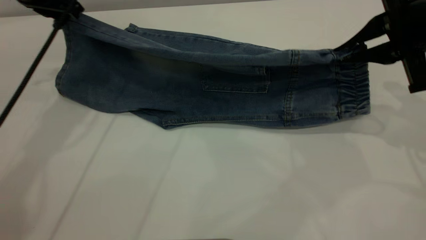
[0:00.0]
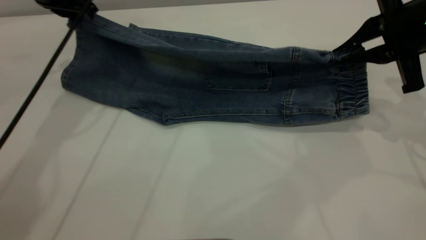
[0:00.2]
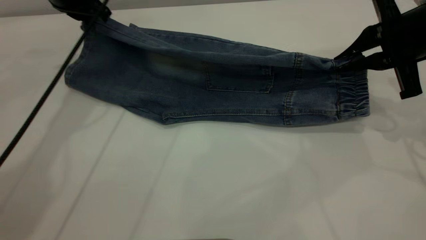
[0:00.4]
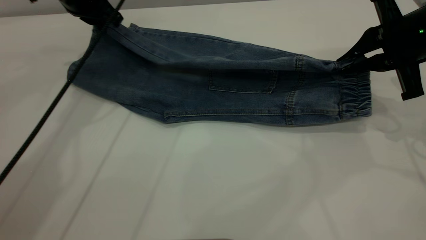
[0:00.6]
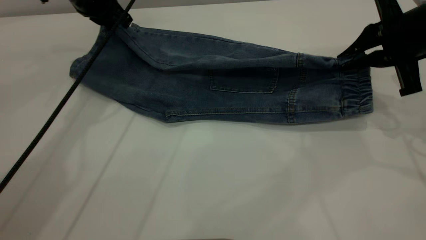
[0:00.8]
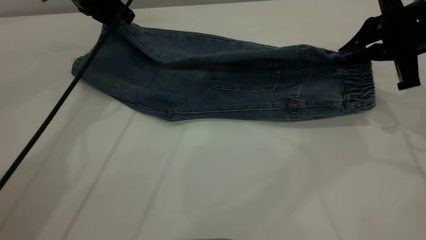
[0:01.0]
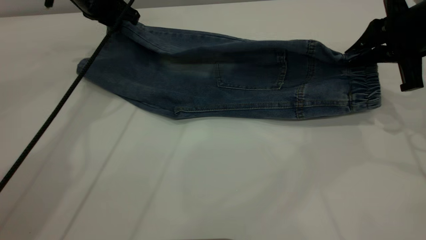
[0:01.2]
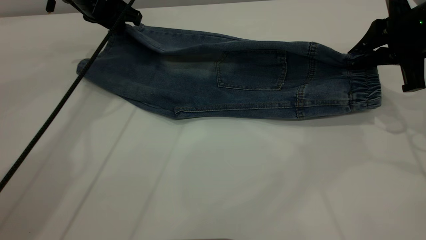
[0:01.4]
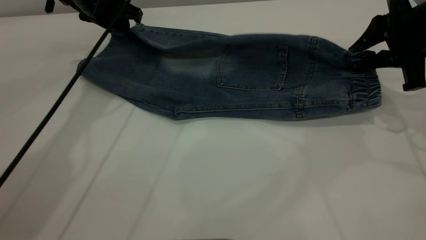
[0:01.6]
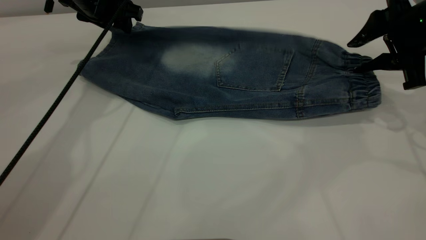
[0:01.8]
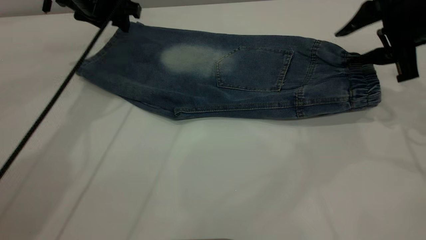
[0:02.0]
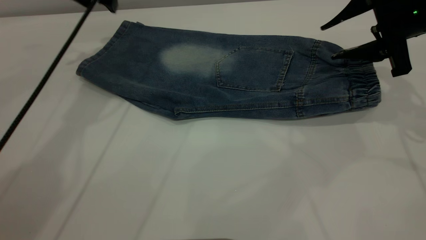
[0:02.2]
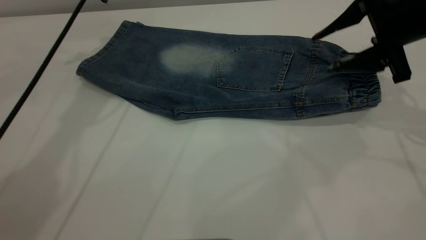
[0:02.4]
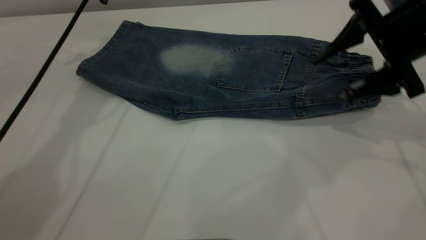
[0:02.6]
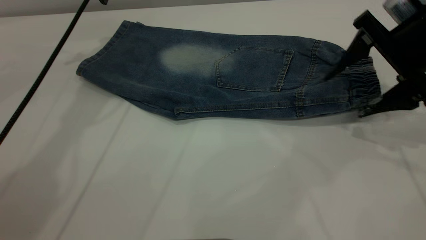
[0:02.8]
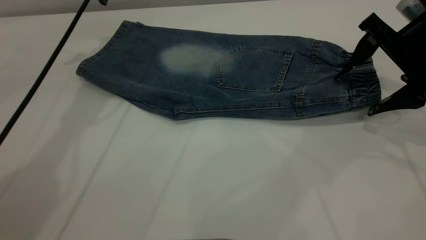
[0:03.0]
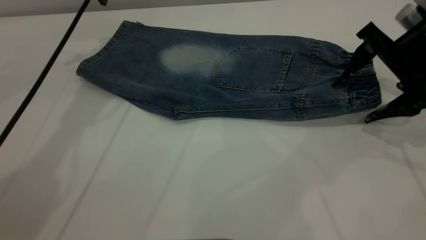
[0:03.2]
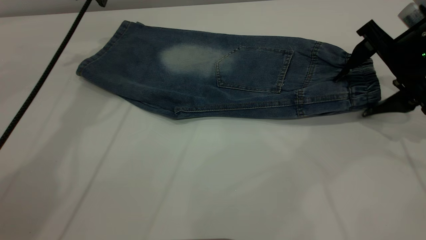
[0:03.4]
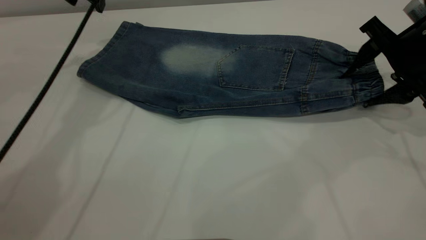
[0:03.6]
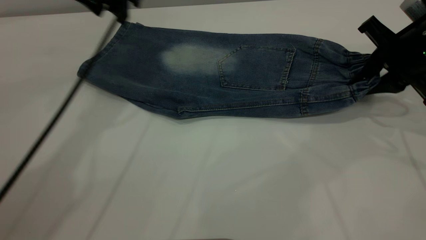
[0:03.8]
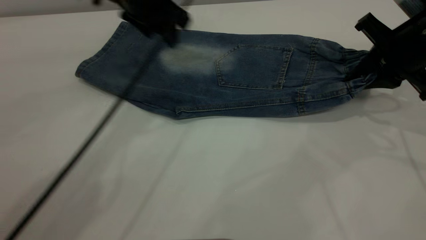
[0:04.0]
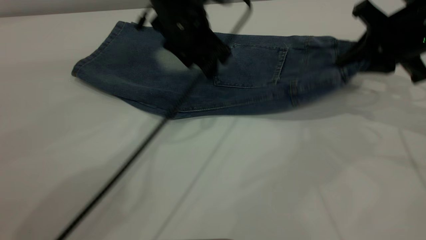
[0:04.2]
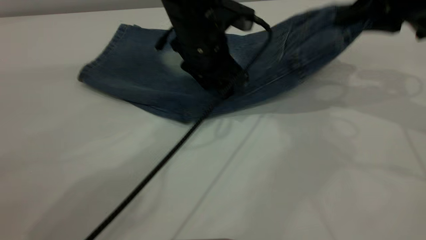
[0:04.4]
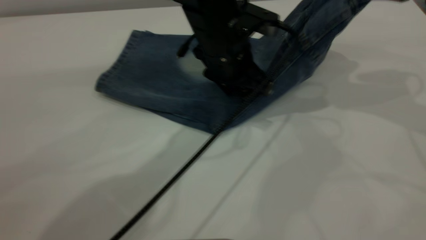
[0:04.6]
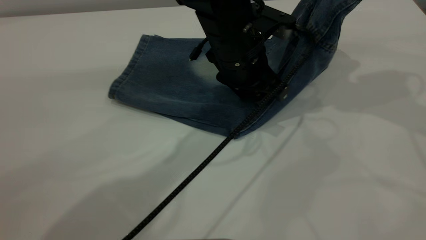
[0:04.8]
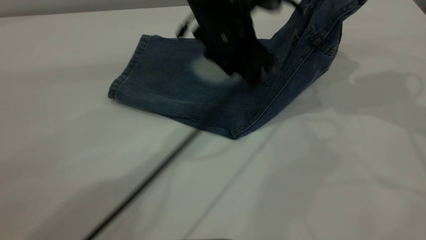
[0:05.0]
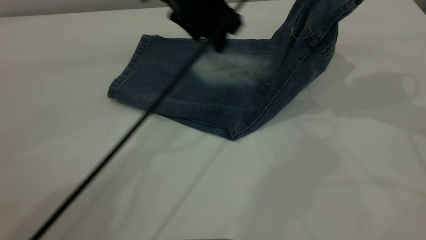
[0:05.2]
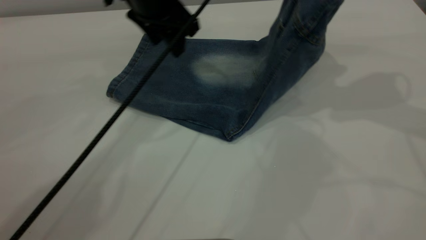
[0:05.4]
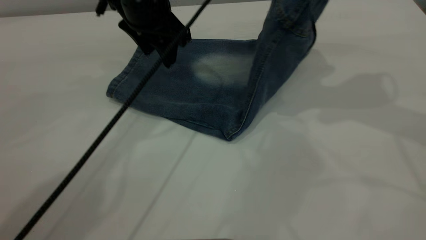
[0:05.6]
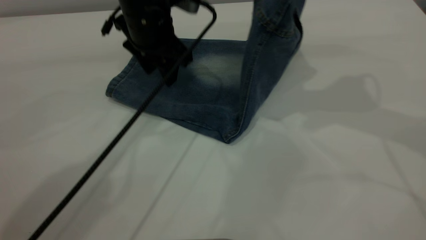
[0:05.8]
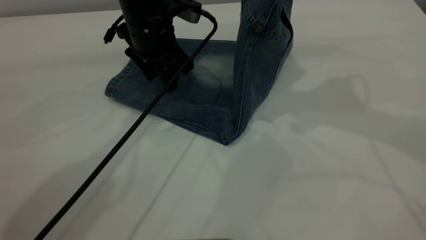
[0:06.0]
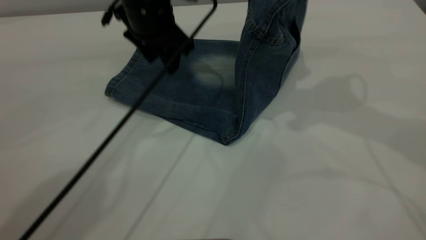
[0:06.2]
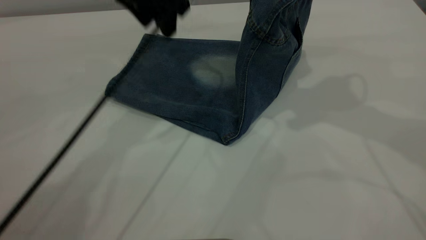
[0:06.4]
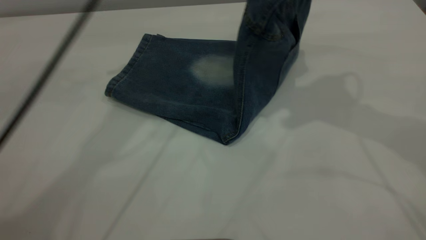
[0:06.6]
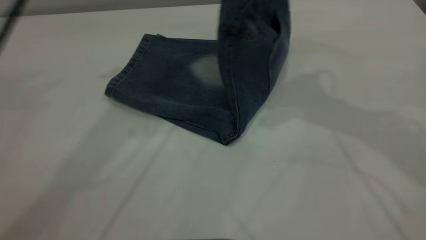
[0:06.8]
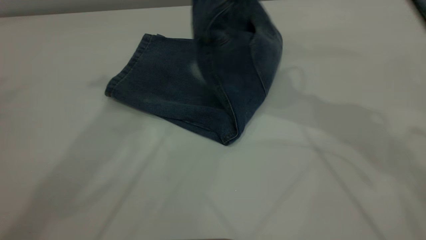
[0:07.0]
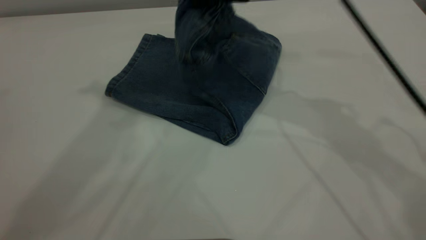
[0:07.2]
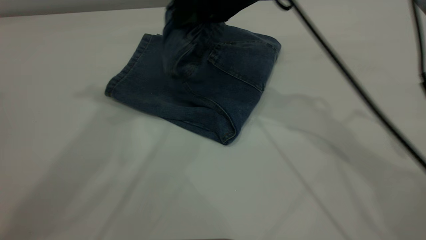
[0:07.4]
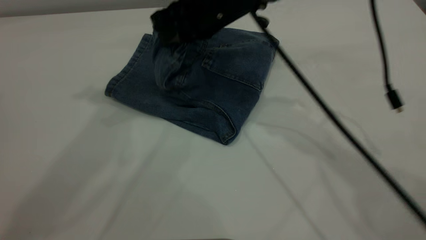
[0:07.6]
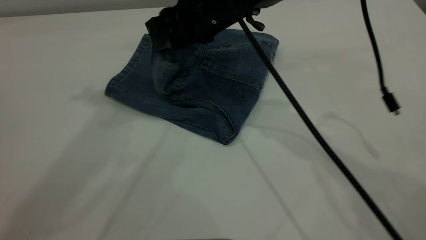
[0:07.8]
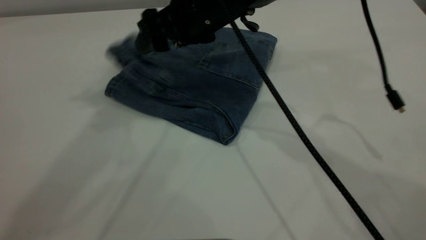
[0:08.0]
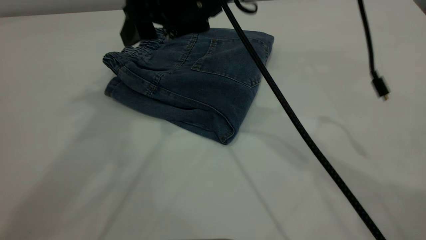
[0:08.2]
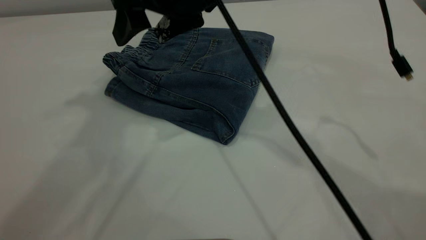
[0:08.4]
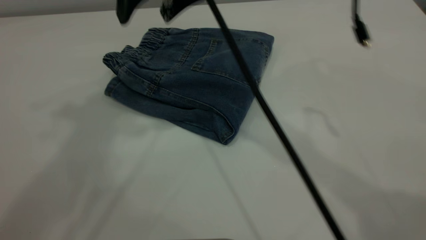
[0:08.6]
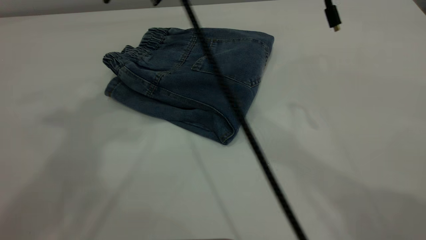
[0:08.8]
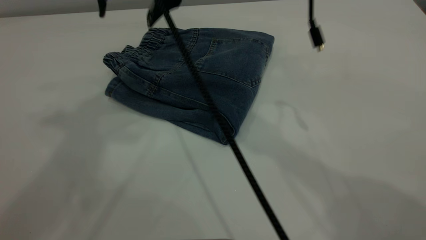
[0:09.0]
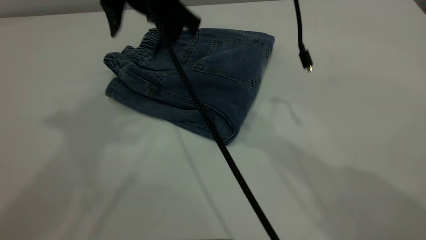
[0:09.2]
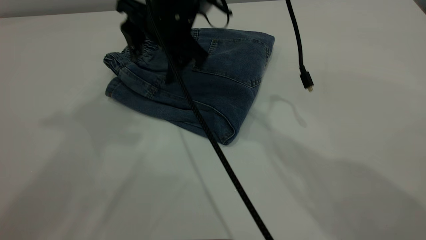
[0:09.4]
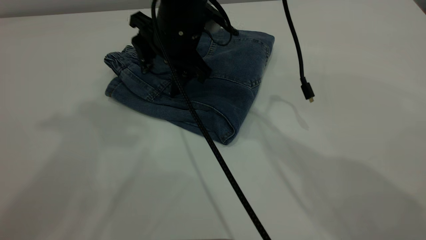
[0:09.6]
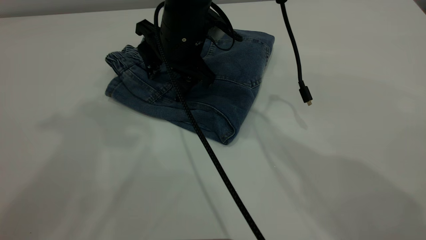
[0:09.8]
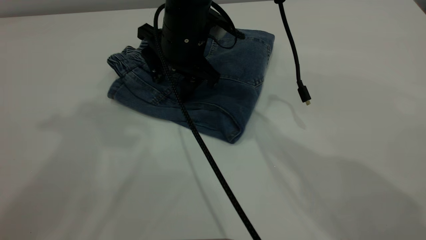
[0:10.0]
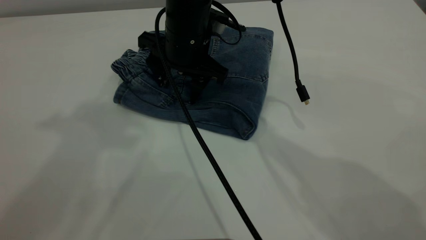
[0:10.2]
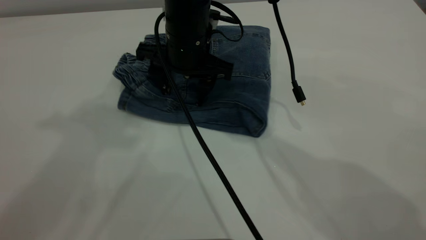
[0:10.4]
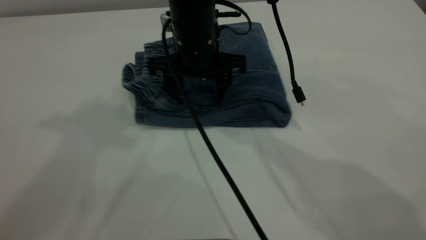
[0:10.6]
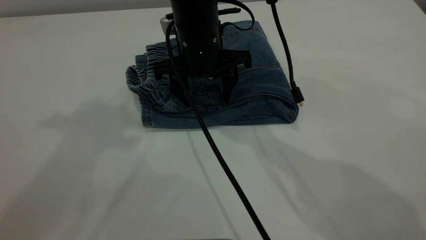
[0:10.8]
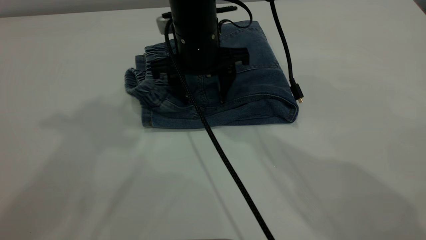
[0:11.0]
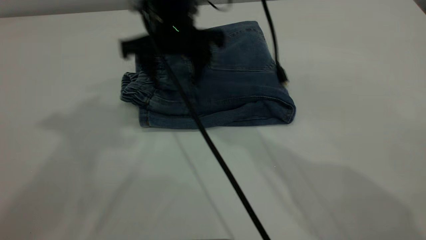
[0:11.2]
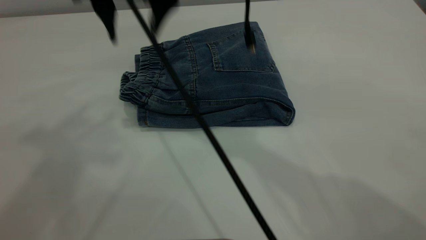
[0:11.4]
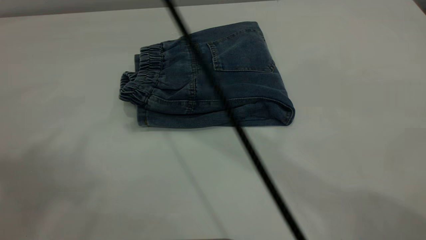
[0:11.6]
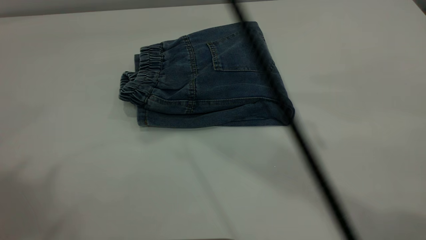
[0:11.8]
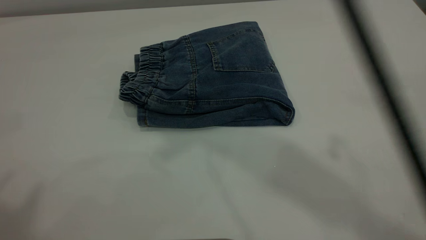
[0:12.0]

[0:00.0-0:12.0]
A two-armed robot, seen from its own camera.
Step, 0:00.0 to 0:02.4: Fold the bottom of the pants upward.
Step, 0:02.6 to 0:08.4: Fold your pants from right to left.
0:00.0 to 0:01.6: The right gripper opens up, while the left gripper shifts roughly 10 cm forward and downward, and opens.
0:01.6 to 0:03.0: The left gripper is displaced upward by approximately 5 cm; the right gripper opens up.
0:03.0 to 0:04.4: The right gripper heads upward, covering about 5 cm, and closes, while the left gripper travels to the right, downward and backward by roughly 25 cm.
0:04.4 to 0:06.0: The right gripper goes approximately 10 cm to the left and upward. The left gripper moves to the left, some 10 cm.
0:06.0 to 0:07.6: The right gripper is displaced to the left and downward by roughly 20 cm, while the left gripper goes some 30 cm upward.
0:07.6 to 0:09.0: The right gripper is displaced upward and to the left by roughly 10 cm, and opens up; the left gripper travels upward and backward by about 10 cm.
0:09.0 to 0:10.4: The right gripper is displaced downward by approximately 10 cm.
0:10.4 to 0:12.0: The left gripper moves backward, to the left and upward, about 20 cm. Meanwhile the right gripper shifts about 40 cm upward.

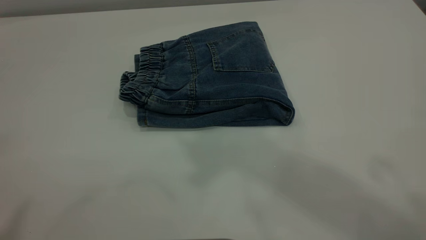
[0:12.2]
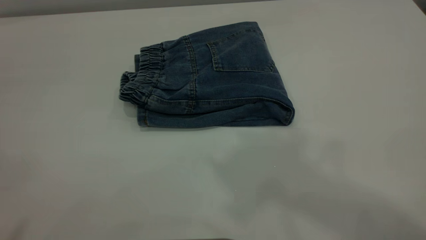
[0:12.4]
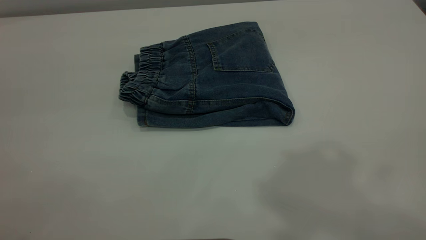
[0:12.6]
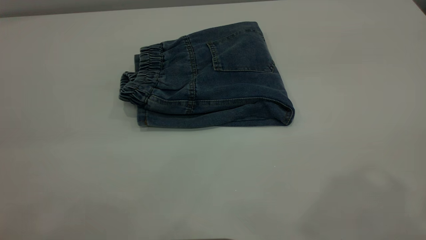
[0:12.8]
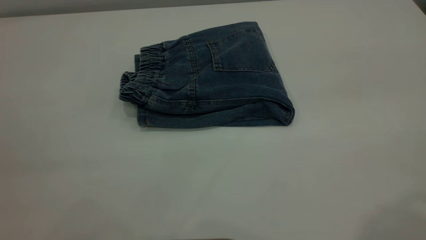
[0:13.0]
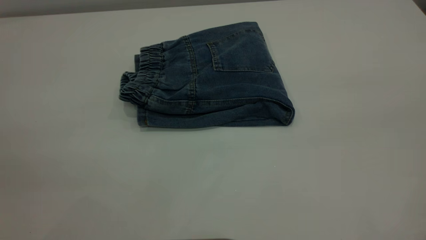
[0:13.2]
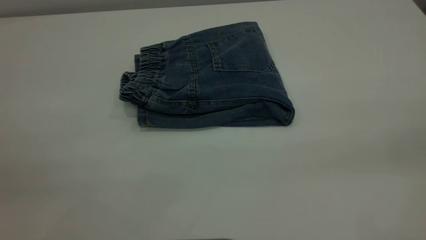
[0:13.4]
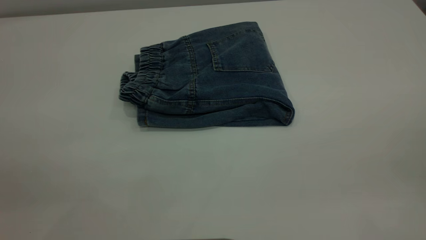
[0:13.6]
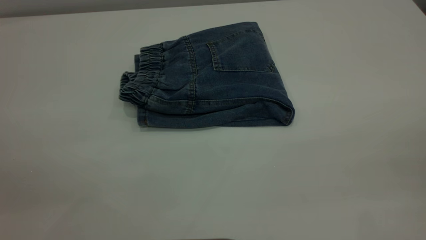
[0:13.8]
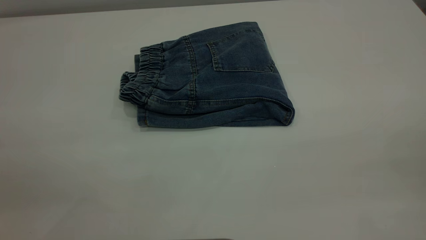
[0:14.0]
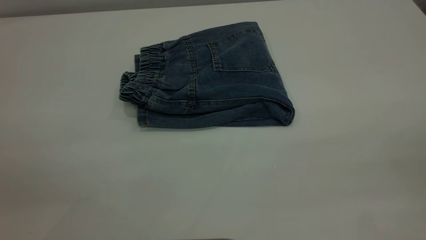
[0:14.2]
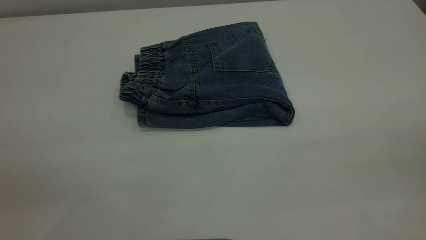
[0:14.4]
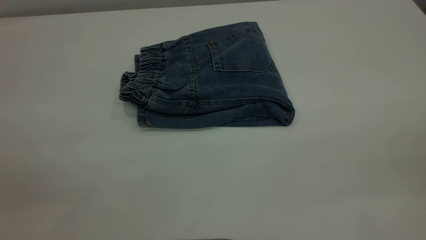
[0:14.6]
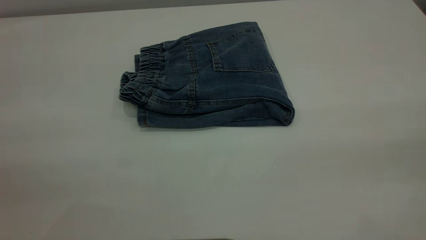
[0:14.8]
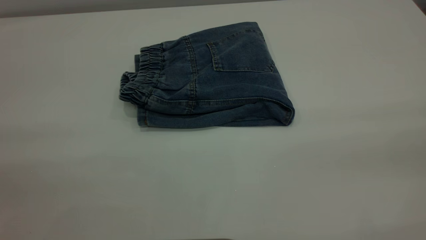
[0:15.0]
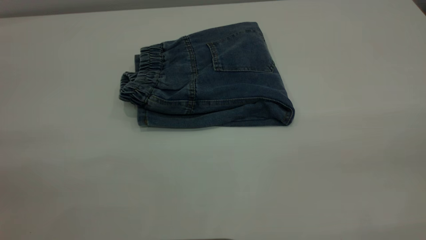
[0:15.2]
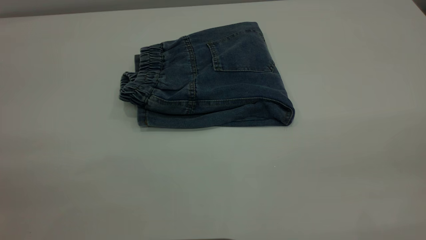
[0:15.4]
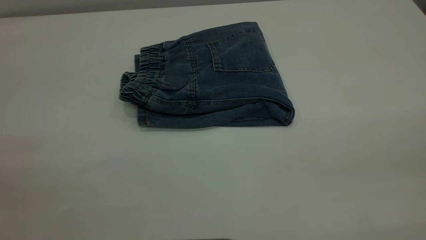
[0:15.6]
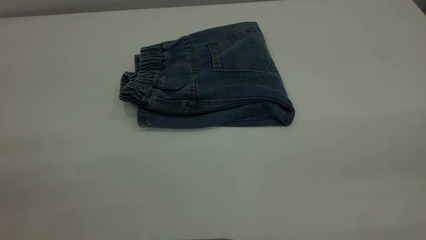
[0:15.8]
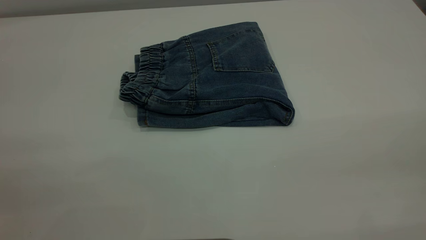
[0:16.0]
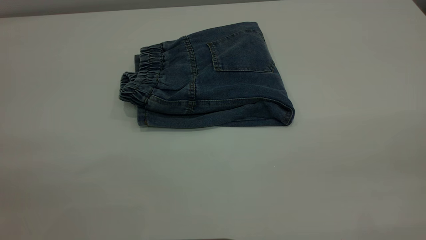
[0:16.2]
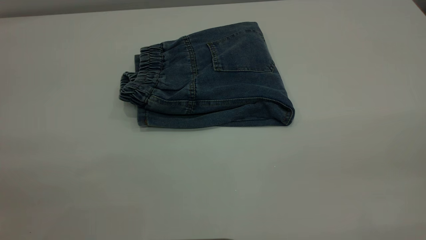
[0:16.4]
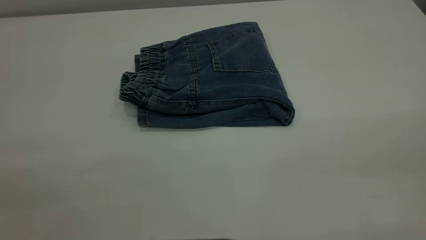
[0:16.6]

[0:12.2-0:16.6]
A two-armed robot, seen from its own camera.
0:15.2 to 0:16.6: Both grippers stay put.
